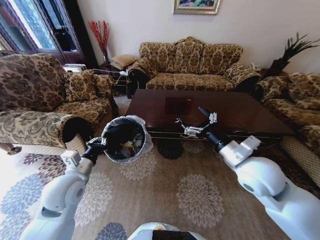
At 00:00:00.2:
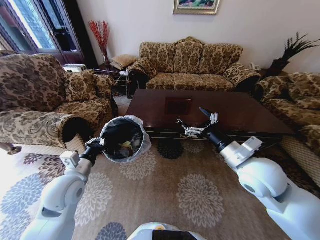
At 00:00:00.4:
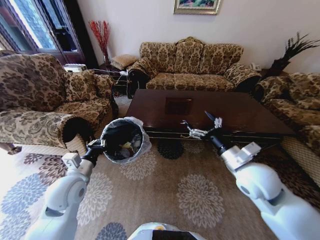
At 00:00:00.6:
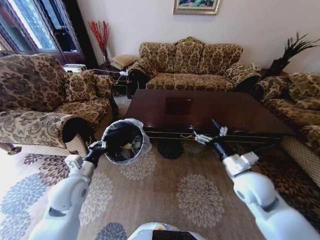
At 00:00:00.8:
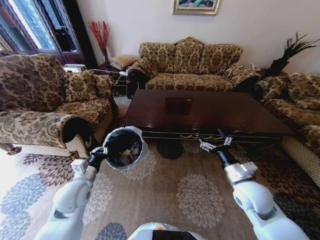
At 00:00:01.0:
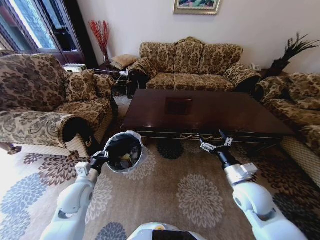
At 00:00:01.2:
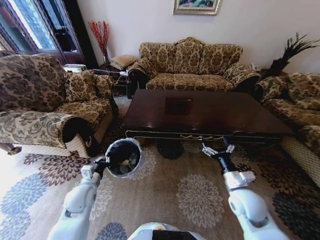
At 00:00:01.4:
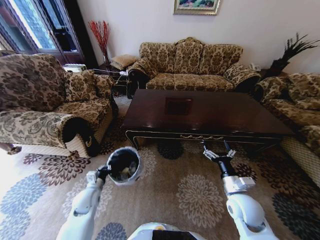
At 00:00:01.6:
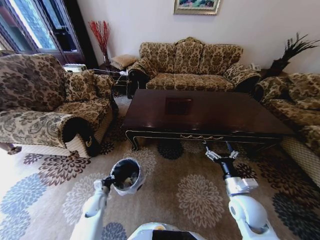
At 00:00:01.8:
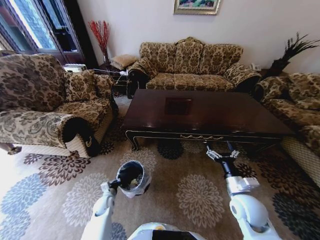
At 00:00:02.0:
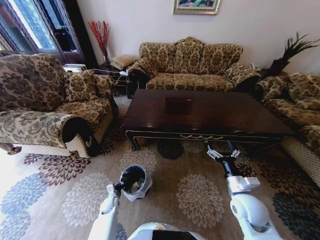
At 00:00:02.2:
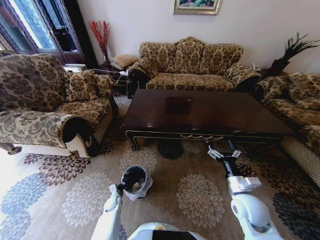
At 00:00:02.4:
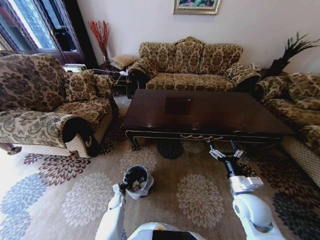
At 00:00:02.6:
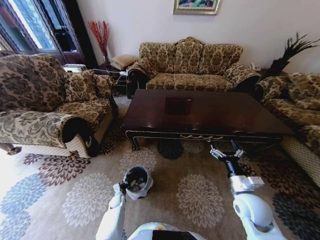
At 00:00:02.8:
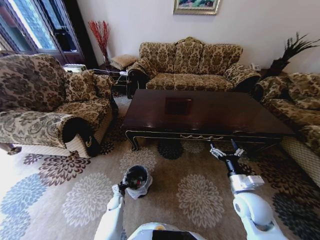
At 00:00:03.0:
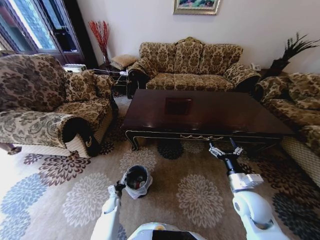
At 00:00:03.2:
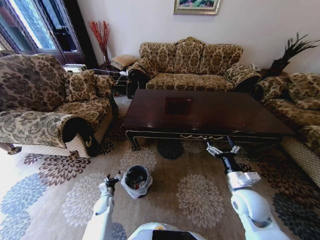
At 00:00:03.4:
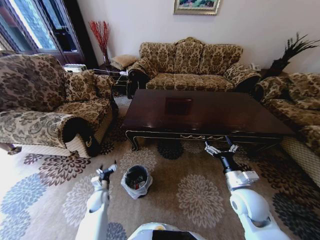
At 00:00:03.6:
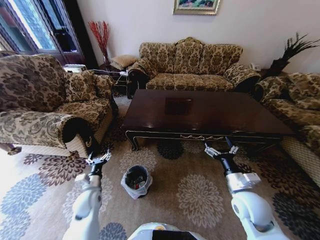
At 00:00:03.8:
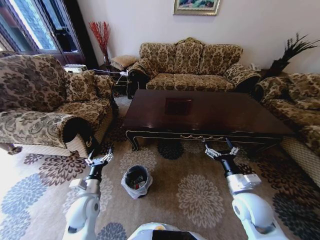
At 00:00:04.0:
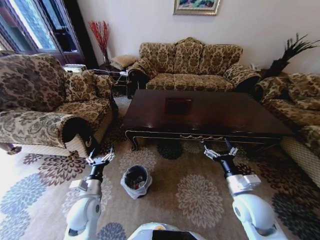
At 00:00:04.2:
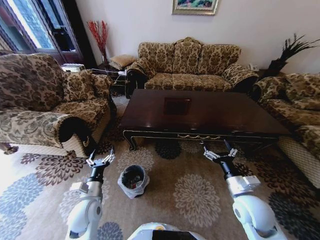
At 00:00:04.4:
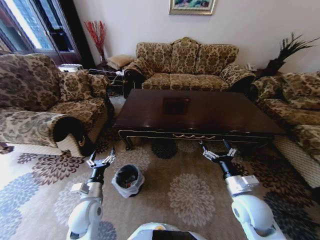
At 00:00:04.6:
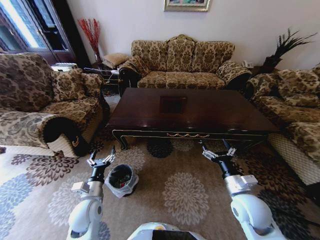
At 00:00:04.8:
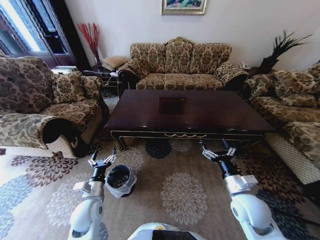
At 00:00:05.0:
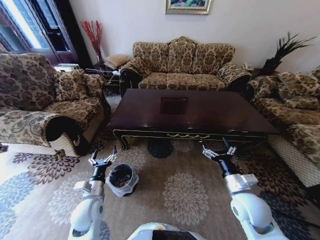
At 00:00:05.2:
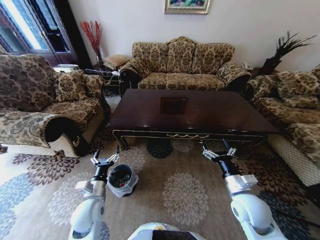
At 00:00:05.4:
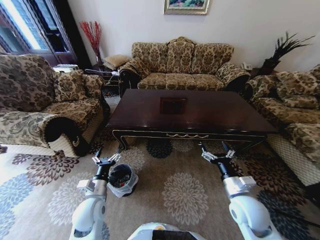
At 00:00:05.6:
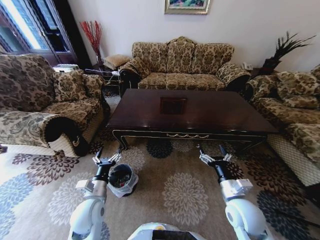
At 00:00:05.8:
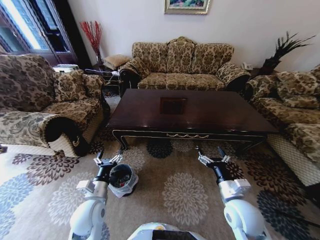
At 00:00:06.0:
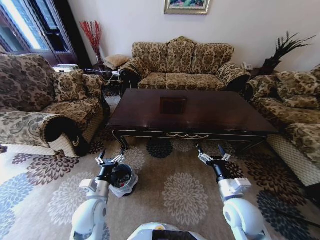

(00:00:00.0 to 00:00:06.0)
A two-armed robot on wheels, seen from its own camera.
Task of the whole recording: Move to the front of the table and place the trash on the table into the trash bin.
00:00:00.0 - 00:00:01.6: The right gripper is displaced downward by some 20 cm; the left gripper goes approximately 30 cm downward.
00:00:01.6 - 00:00:03.0: The left gripper is displaced downward by some 15 cm, and opens.
00:00:03.0 - 00:00:04.4: The left gripper shifts roughly 30 cm upward, and opens.
